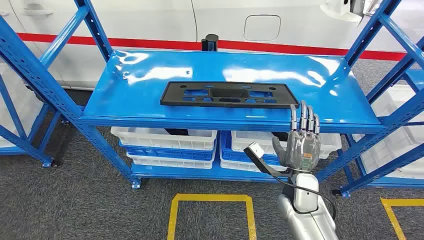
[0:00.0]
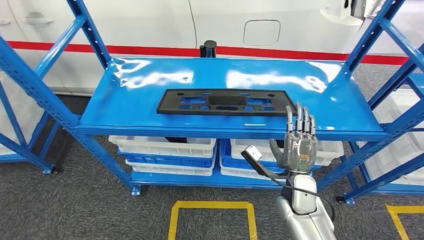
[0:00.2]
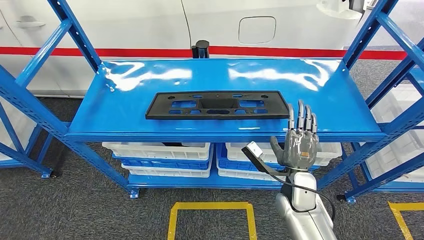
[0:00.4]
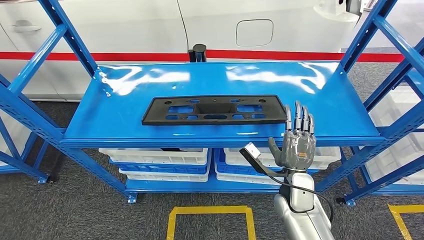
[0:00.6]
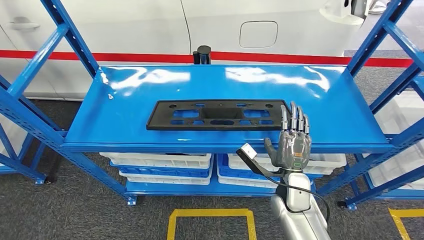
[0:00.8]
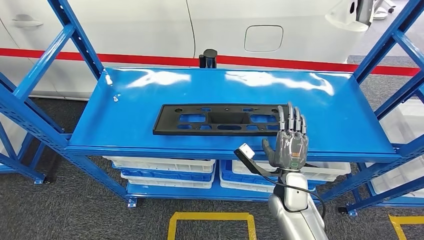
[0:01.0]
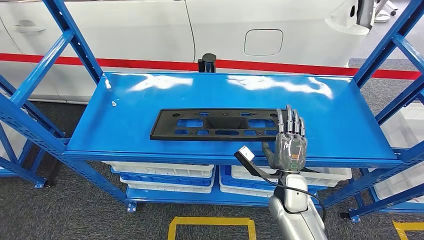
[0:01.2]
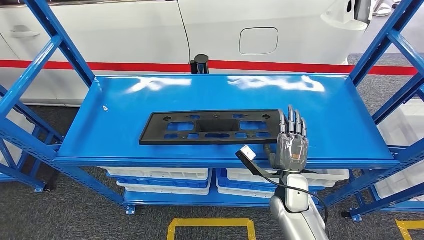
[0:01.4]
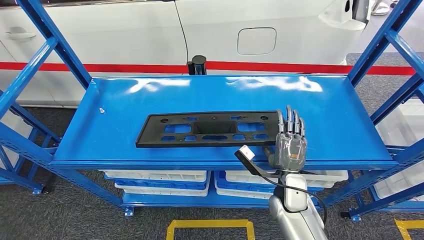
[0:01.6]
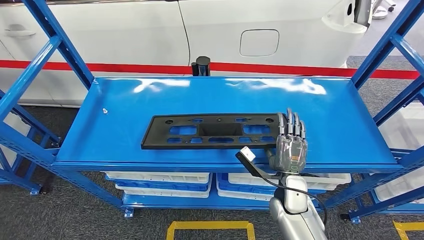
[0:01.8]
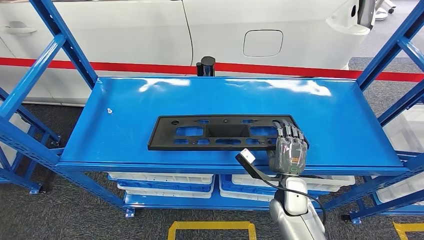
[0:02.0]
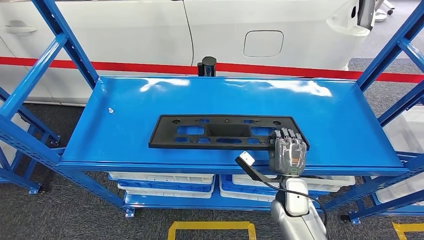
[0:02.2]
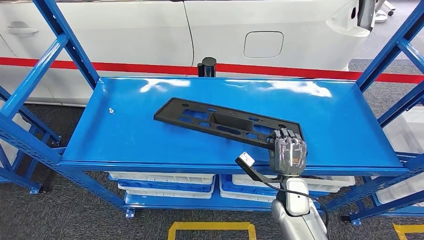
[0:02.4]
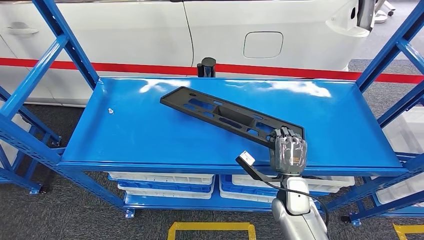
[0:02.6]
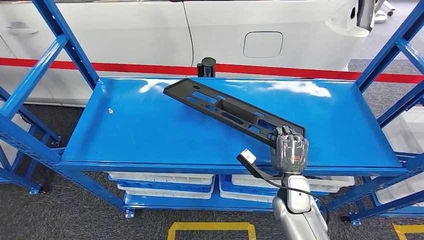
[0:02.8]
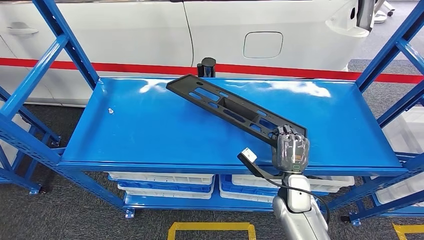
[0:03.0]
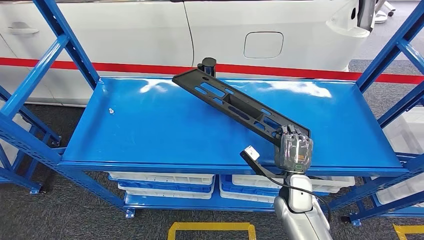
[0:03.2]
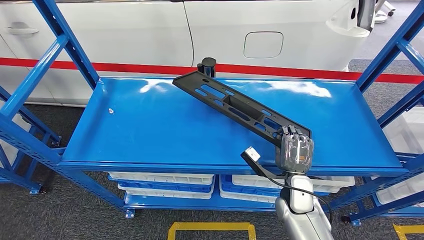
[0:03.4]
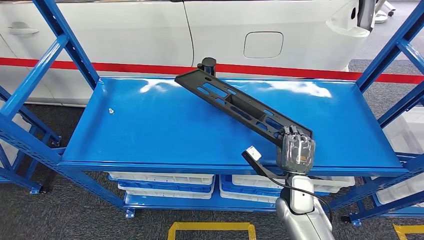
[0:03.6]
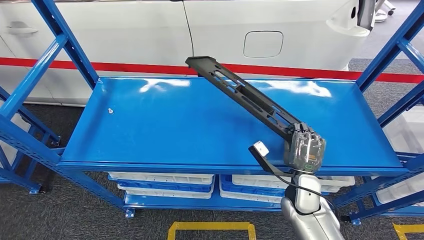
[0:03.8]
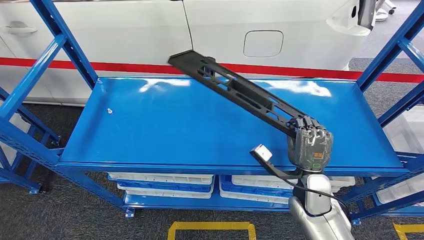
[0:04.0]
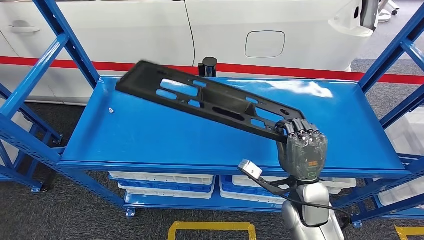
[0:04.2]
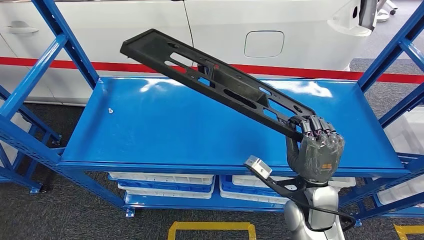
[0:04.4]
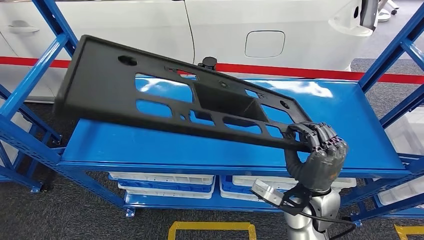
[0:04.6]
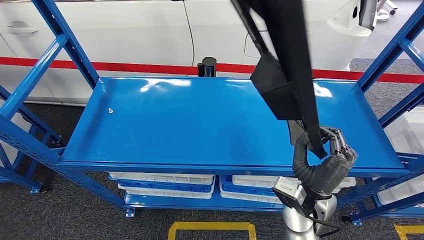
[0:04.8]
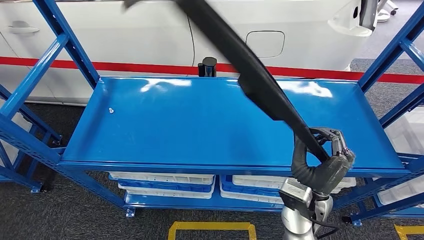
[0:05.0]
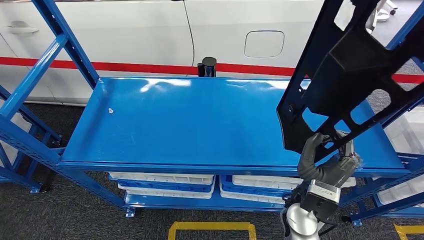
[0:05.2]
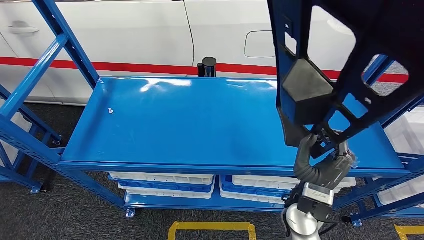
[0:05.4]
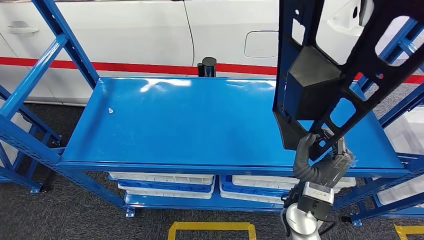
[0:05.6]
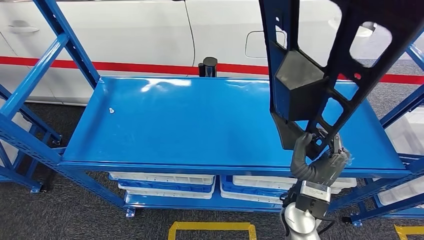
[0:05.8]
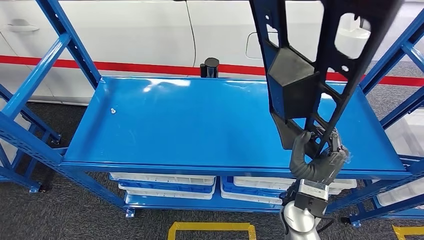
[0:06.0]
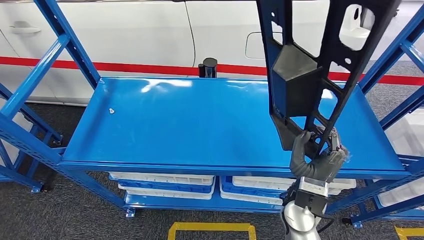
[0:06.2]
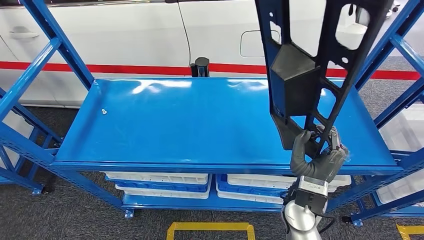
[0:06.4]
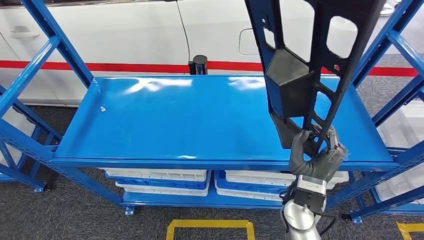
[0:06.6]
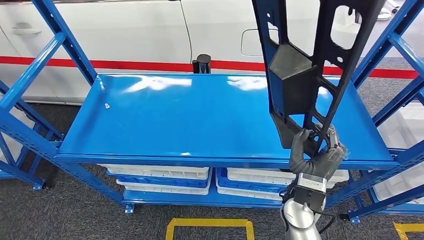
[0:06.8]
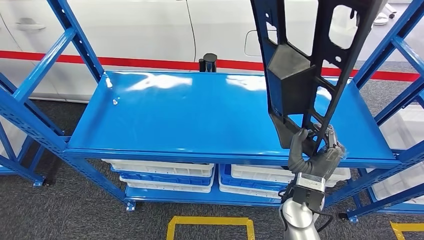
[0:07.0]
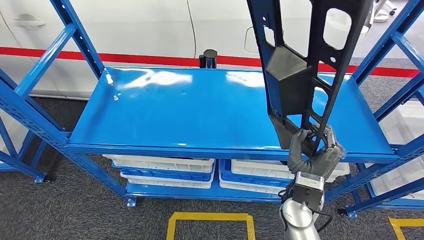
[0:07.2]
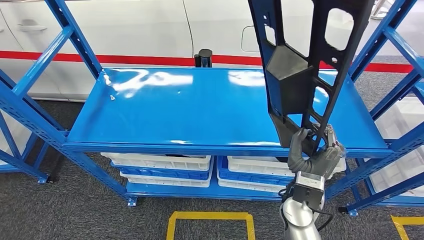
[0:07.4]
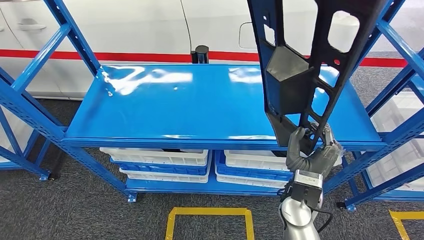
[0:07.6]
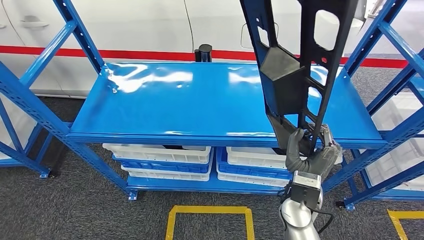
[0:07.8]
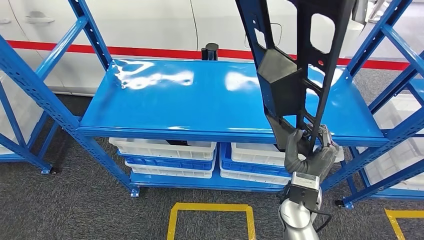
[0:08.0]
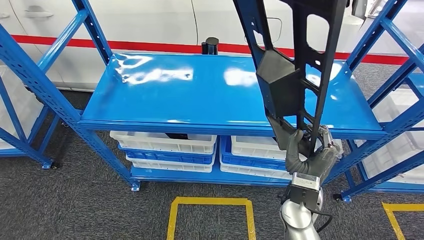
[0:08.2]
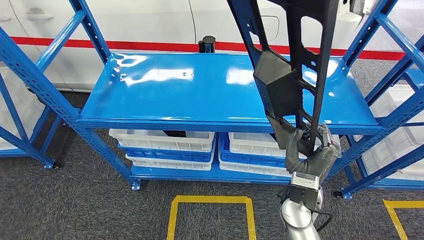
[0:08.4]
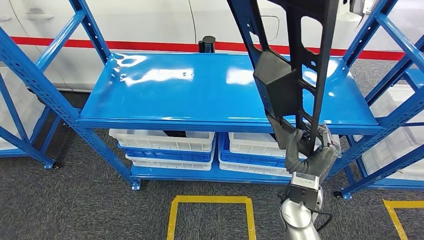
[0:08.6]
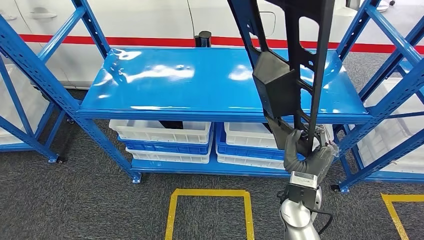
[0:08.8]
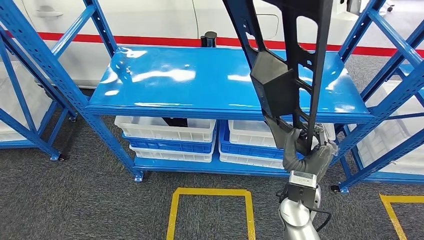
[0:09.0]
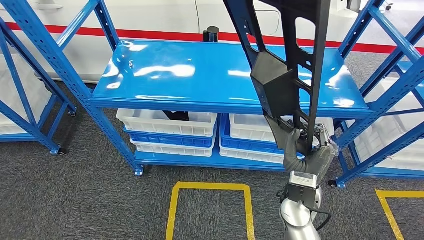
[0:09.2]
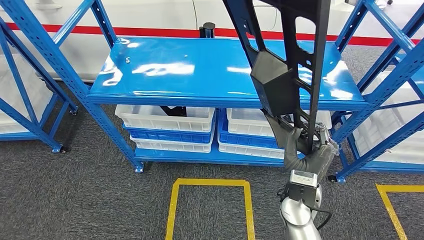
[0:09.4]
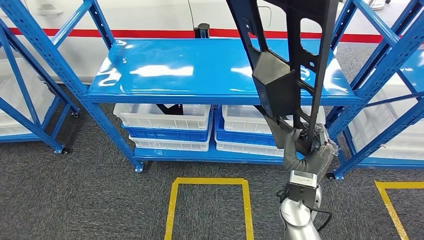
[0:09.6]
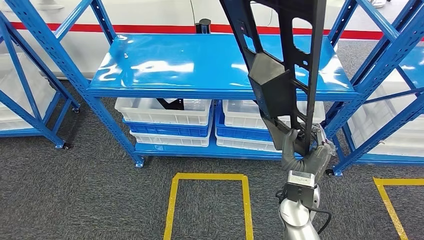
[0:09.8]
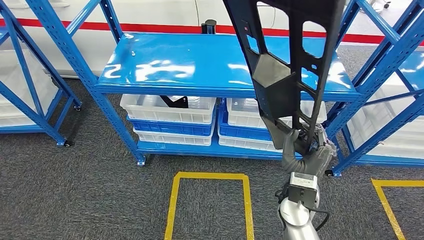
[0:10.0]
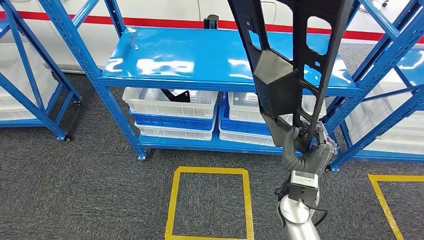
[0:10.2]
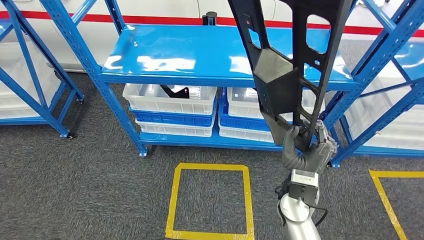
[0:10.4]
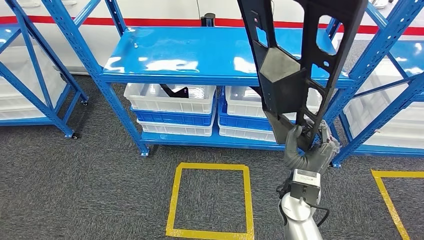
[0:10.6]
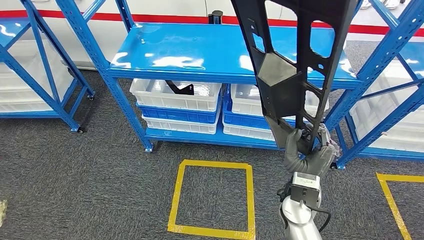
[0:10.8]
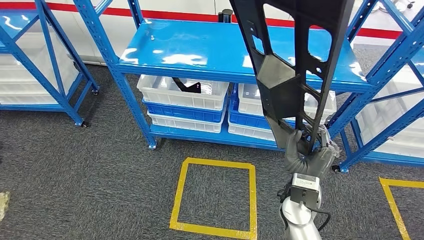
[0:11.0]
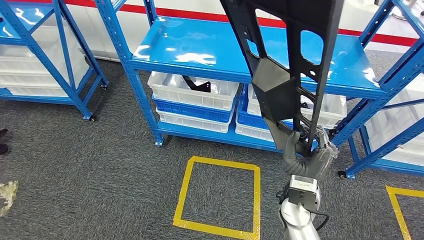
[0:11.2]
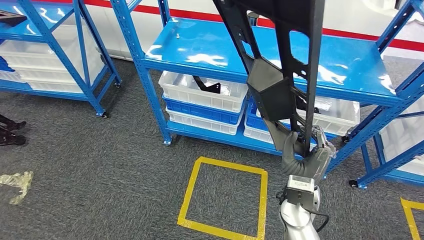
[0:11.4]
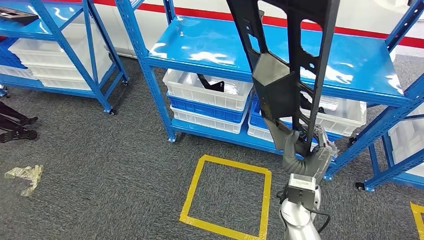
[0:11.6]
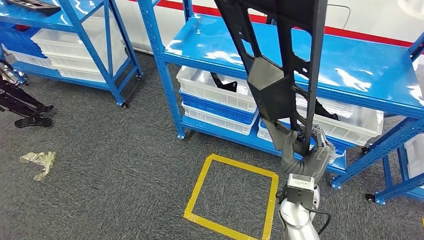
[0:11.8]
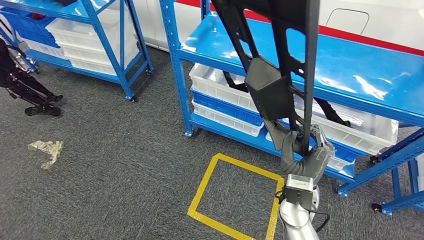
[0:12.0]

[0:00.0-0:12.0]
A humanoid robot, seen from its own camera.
Step, 0:00.0 to 0:09.4: Pick up the large material from the shelf.

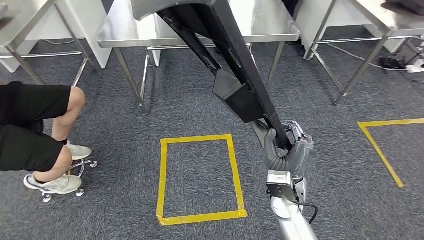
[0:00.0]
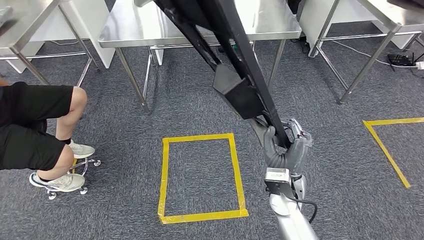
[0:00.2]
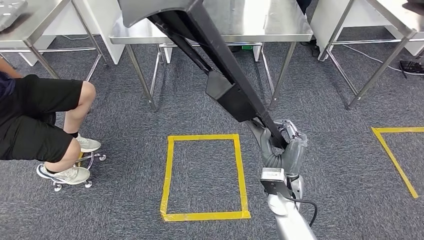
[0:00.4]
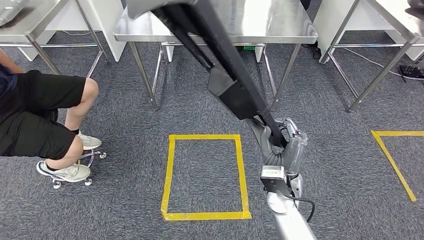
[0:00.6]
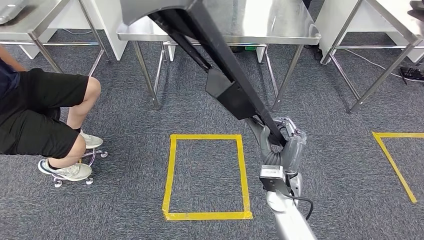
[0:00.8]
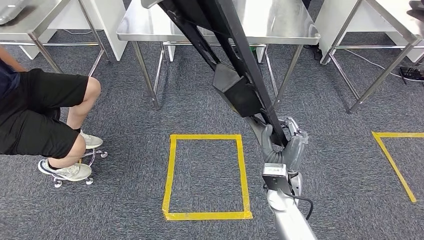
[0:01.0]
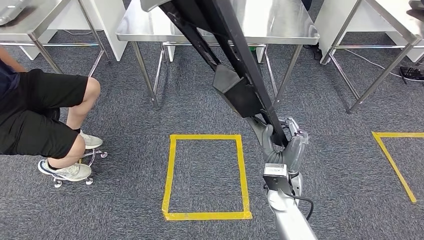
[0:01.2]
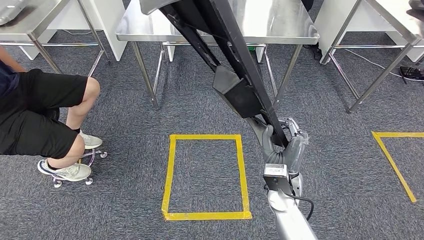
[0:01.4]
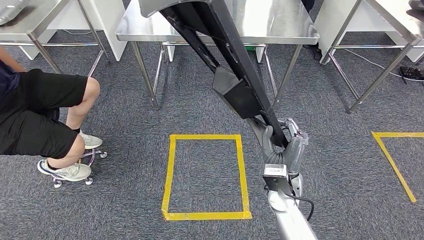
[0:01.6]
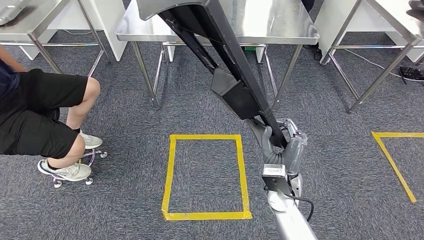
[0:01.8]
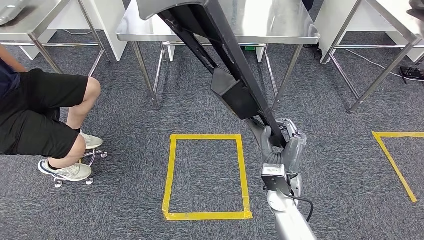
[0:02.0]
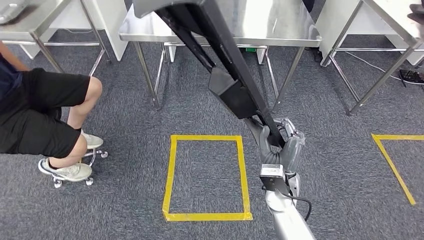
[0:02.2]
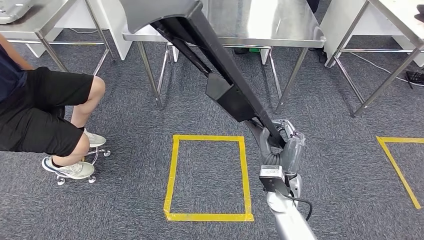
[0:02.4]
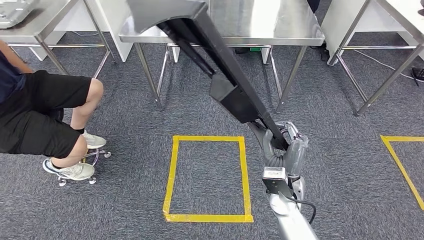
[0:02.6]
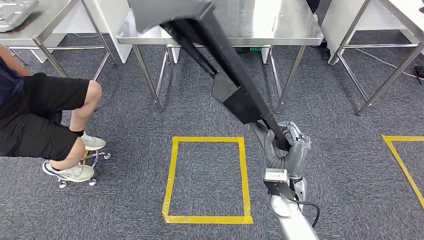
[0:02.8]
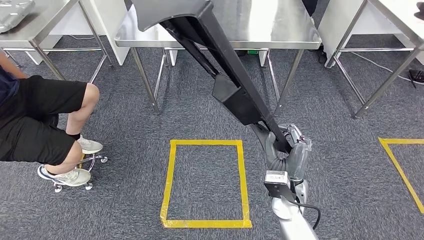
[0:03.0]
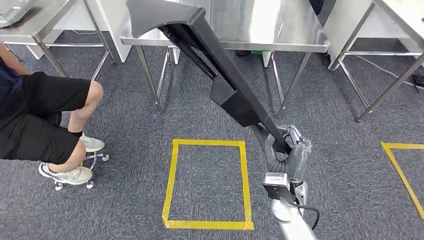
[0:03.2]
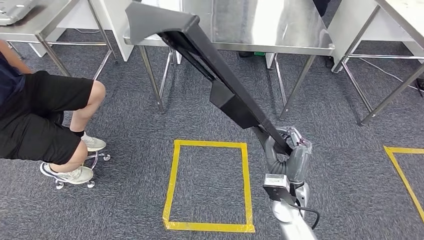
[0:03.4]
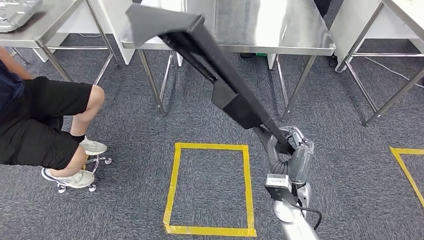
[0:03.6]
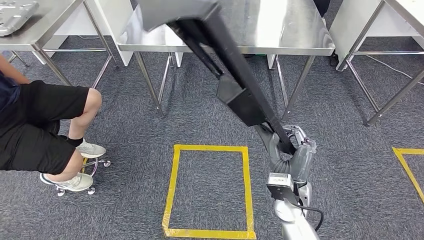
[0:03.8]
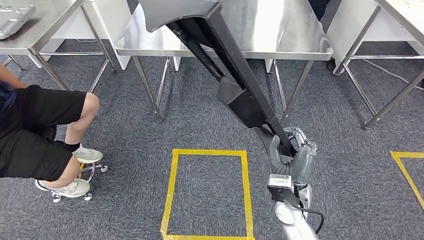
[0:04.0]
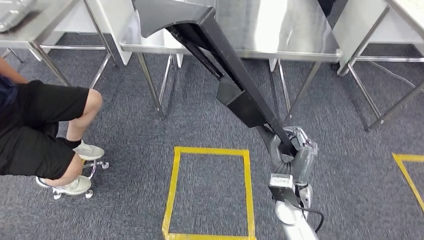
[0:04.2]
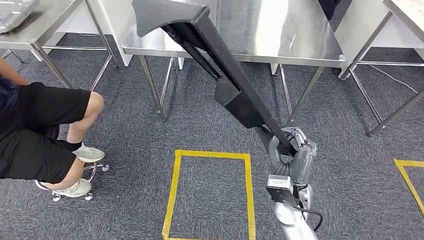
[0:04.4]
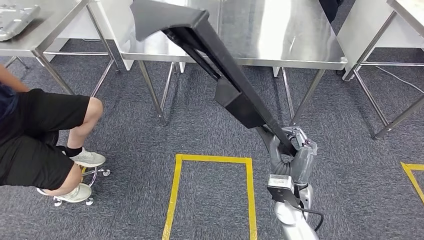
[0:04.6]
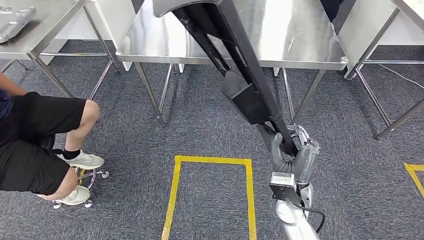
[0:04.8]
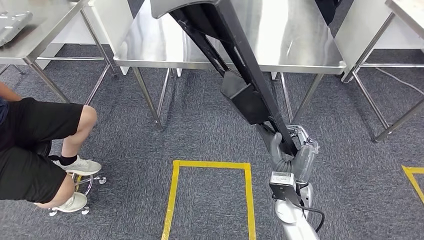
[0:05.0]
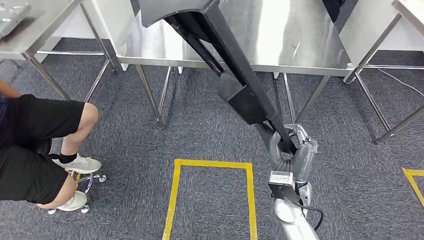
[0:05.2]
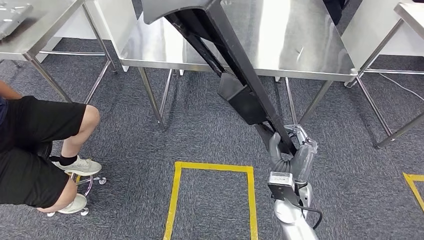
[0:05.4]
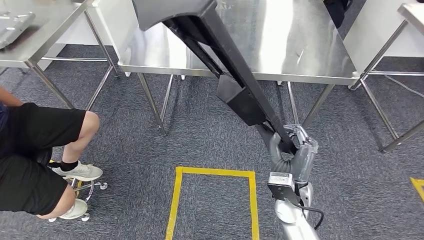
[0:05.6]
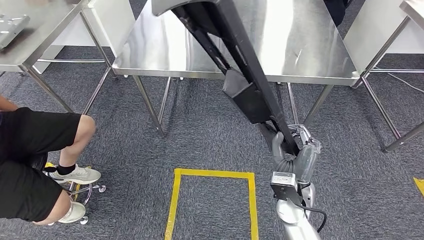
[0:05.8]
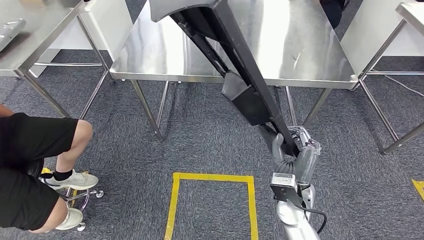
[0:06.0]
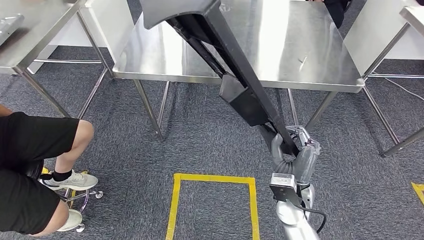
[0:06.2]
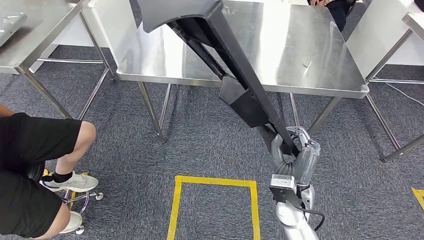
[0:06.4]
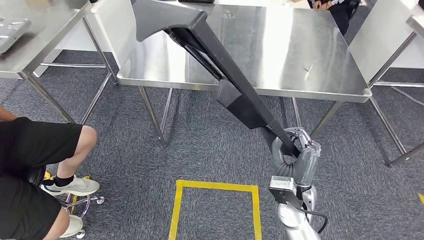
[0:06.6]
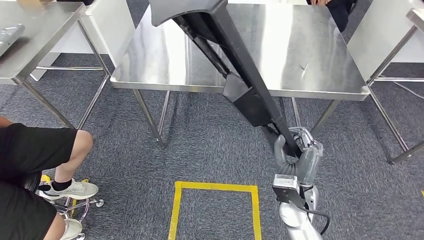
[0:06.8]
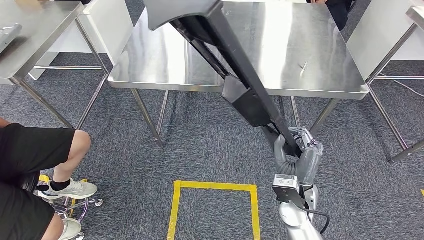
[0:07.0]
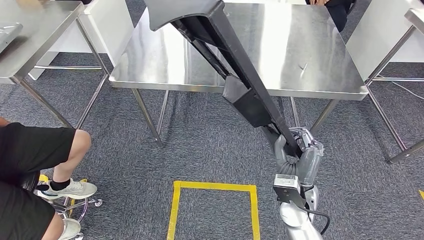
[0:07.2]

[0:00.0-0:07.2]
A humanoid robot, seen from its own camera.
Step, 0:00.0 to 0:05.0: Move the large material to the workbench.
